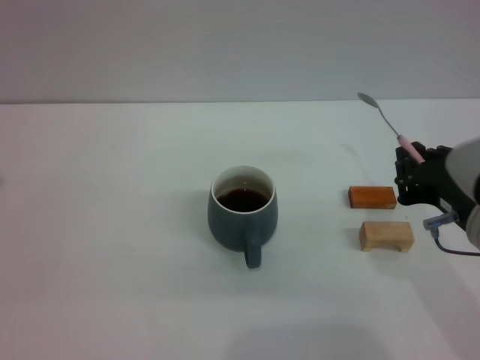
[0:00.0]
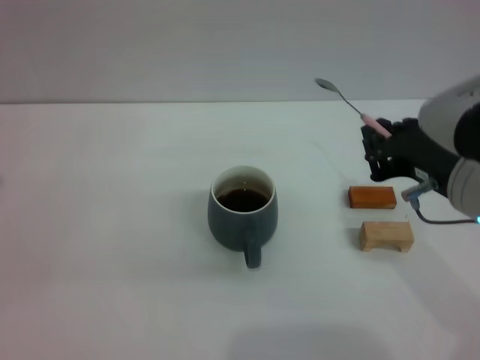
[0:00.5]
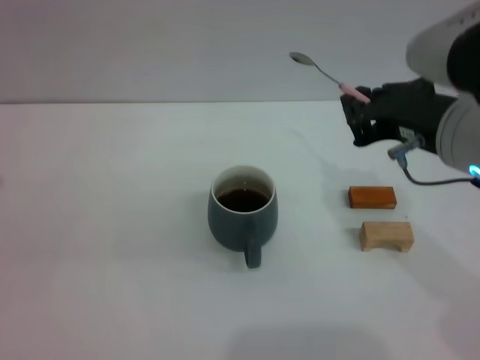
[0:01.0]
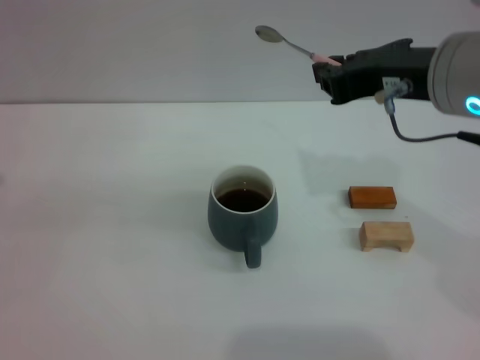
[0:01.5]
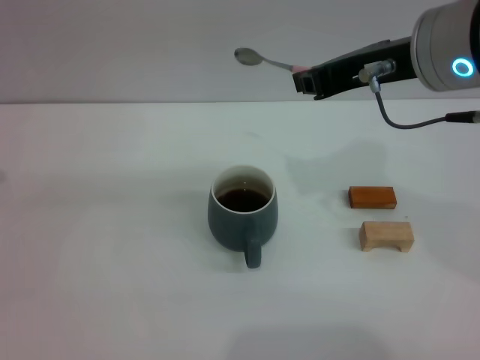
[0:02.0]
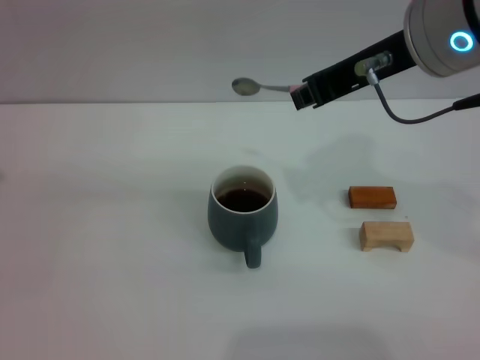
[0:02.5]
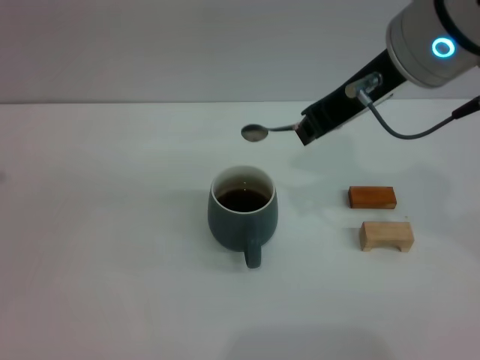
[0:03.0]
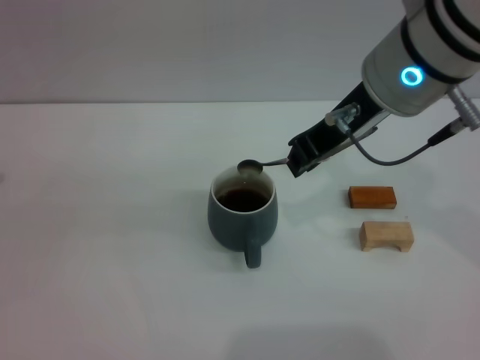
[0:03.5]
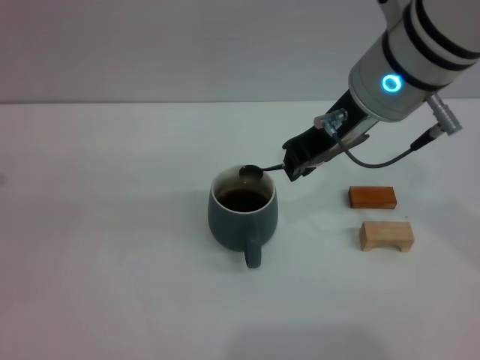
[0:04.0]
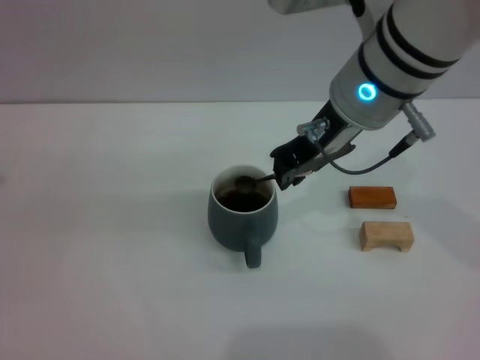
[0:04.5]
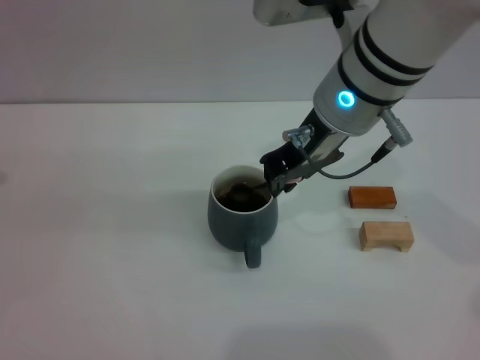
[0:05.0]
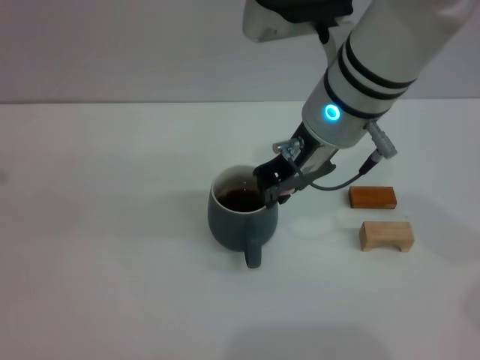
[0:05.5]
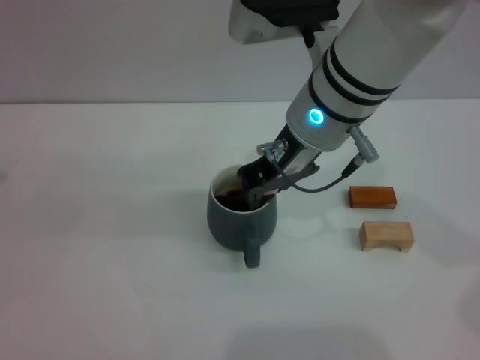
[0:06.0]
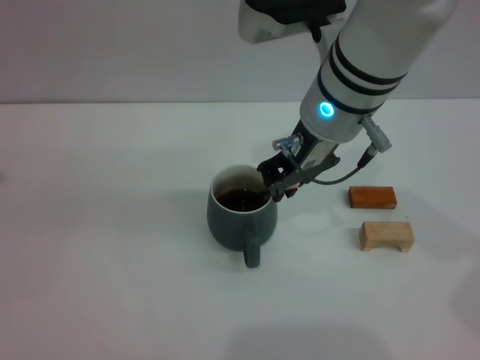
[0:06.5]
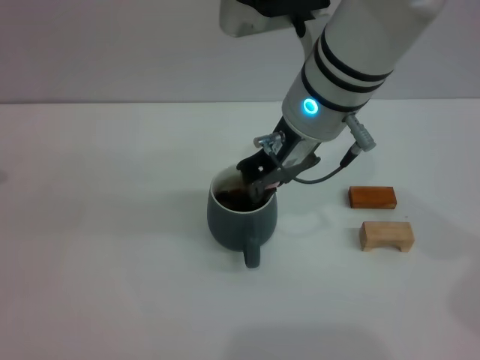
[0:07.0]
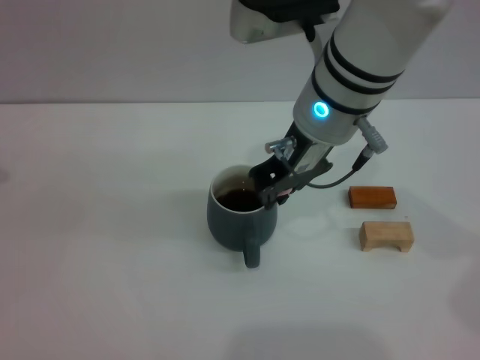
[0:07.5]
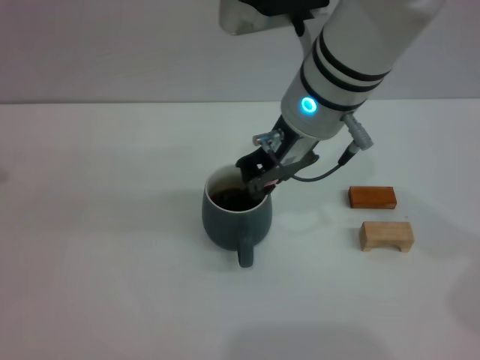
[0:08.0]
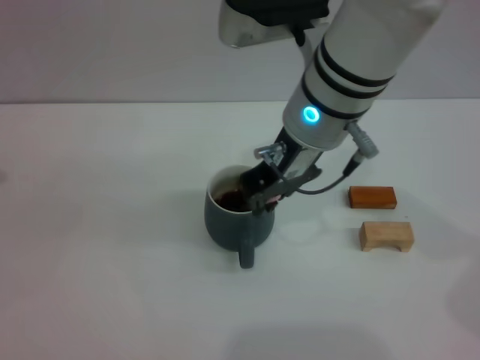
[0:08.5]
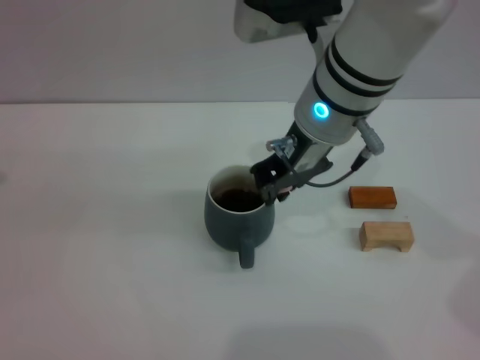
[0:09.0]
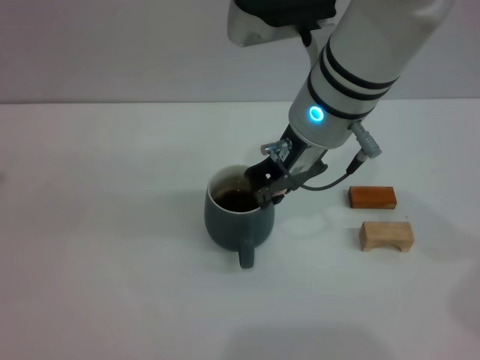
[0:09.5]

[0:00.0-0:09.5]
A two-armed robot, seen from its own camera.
Task of the whole recording: Move the grey cup to the center, lift the pink spoon, stir it three times in the cup, and put the spoon into the cup.
0:00.0 to 0:02.0: The right gripper moves upward and forward, approximately 15 cm.
0:02.0 to 0:04.0: The right gripper ends up approximately 5 cm from where it was.
0:04.0 to 0:05.5: The right gripper moves approximately 5 cm.
0:05.5 to 0:07.5: There are only small adjustments of the grippers.
0:07.5 to 0:09.5: The two grippers keep their place.

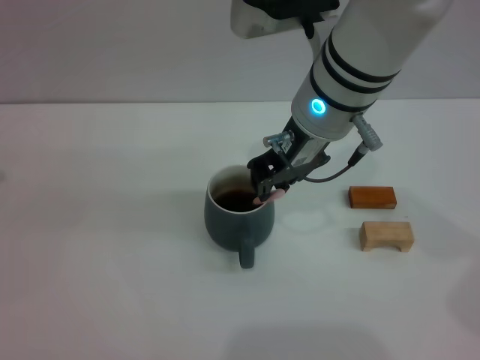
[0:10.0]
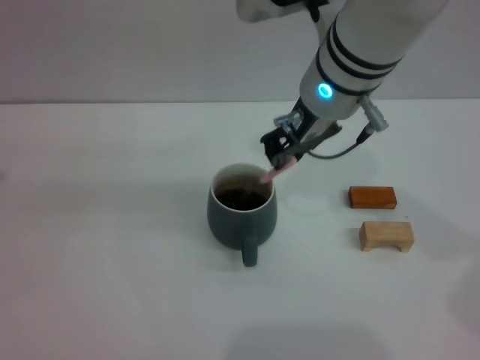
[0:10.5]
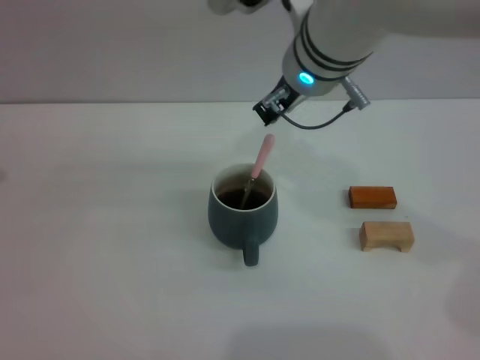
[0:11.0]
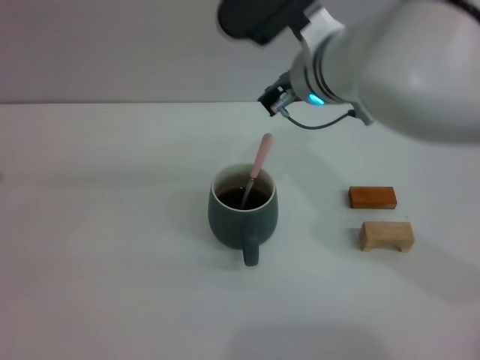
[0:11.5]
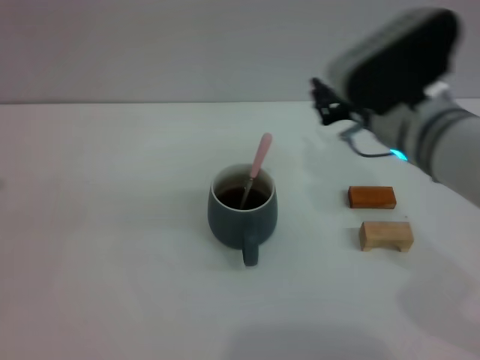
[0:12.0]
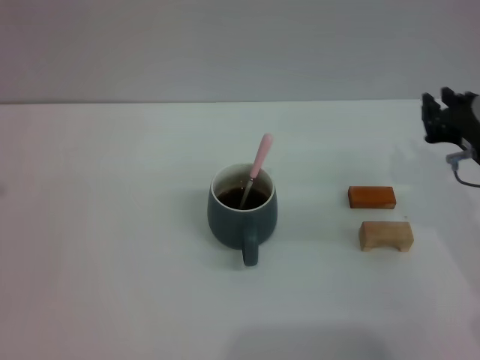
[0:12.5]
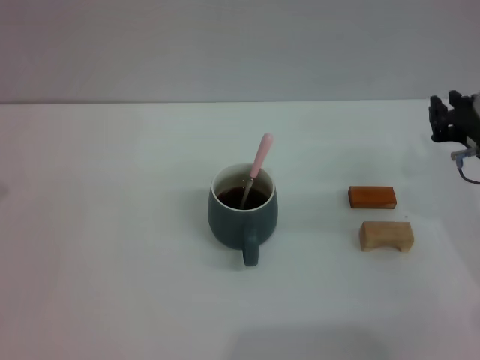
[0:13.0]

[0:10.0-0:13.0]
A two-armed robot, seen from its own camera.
Task of the whole recording: Move the grey cup to the center, lift the pink spoon, stir it three times in the cup, and put the spoon into the cup.
0:11.5 to 0:13.0: The right gripper moves to the right and downward, roughly 20 cm.
